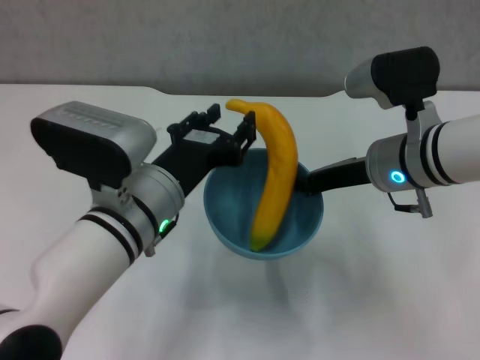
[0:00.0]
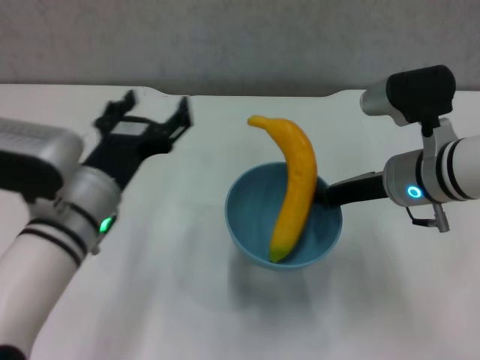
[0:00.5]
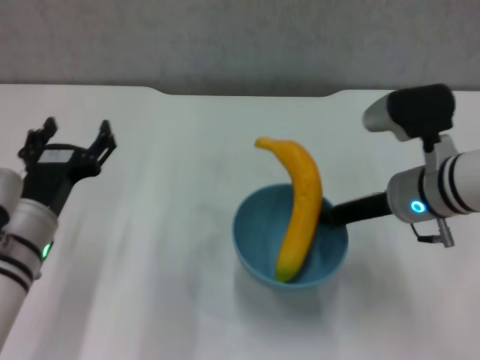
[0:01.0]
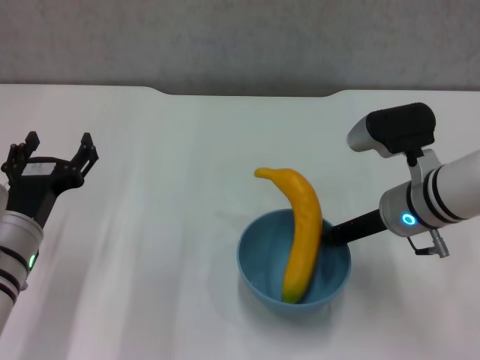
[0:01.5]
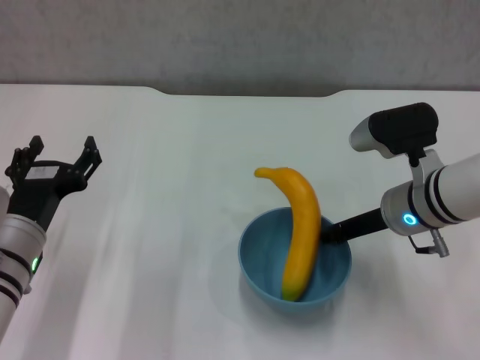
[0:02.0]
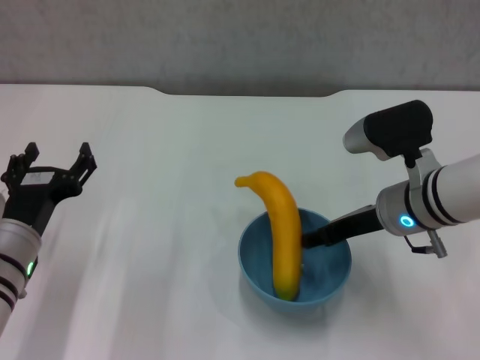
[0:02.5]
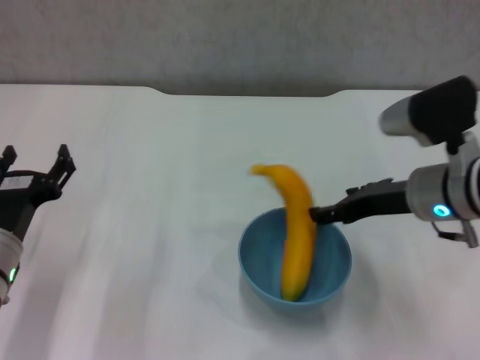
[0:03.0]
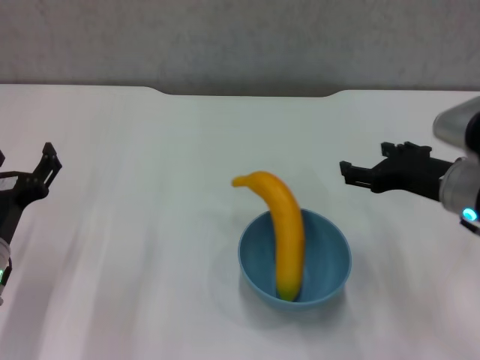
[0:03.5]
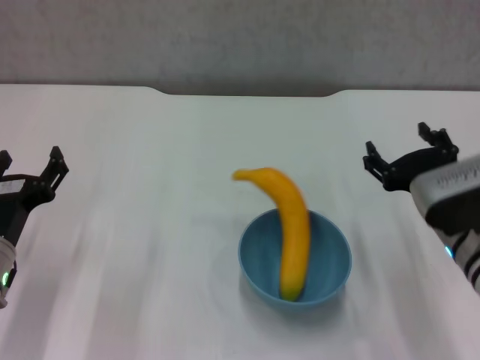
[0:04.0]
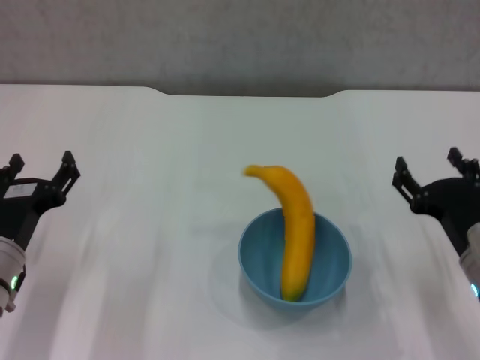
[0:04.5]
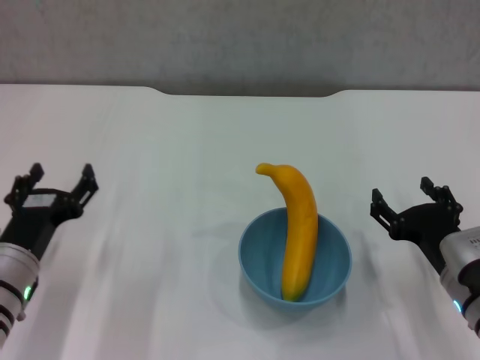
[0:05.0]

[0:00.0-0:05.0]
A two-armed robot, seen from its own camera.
Step, 0:00.0 to 0:02.5: Place the bowl on the table with right gripper.
0:00.0 to 0:02.5: The right gripper opens up, while the left gripper heads to the left and downward, covering roughly 15 cm, and opens its fingers.
0:02.5 to 0:05.0: The right gripper moves backward, downward and to the right, some 15 cm.

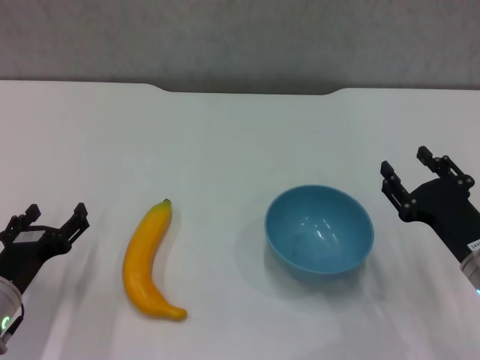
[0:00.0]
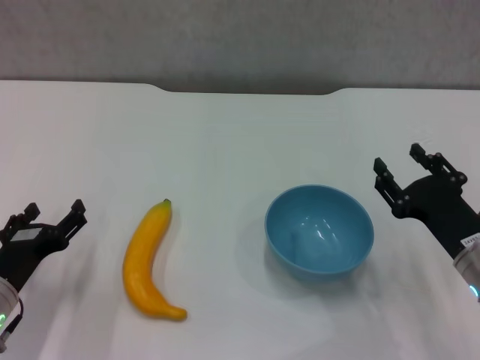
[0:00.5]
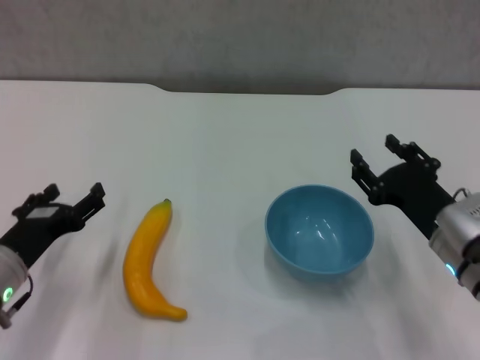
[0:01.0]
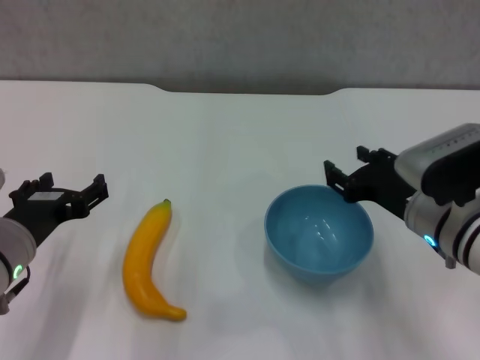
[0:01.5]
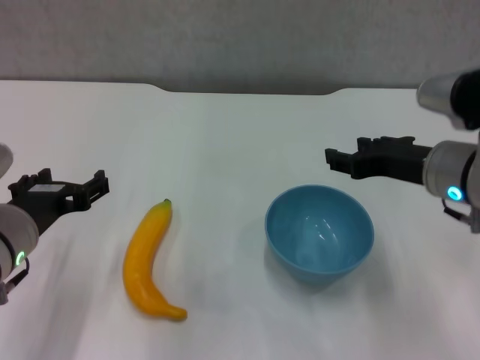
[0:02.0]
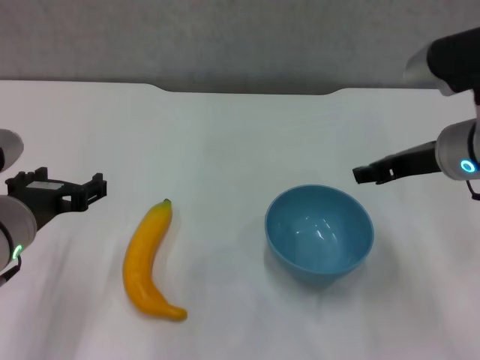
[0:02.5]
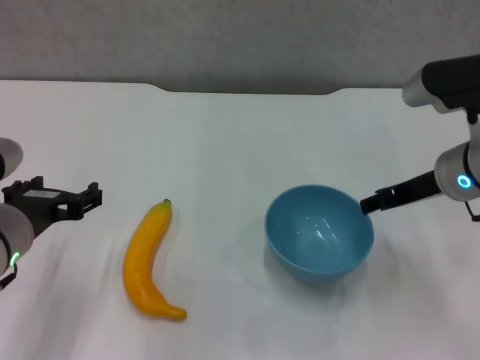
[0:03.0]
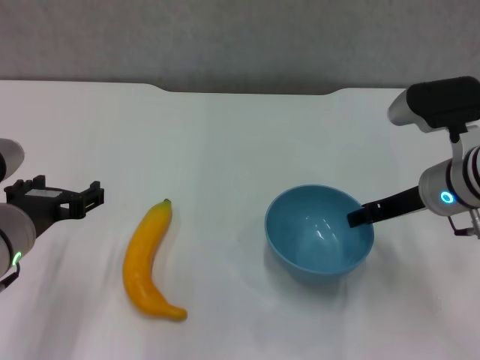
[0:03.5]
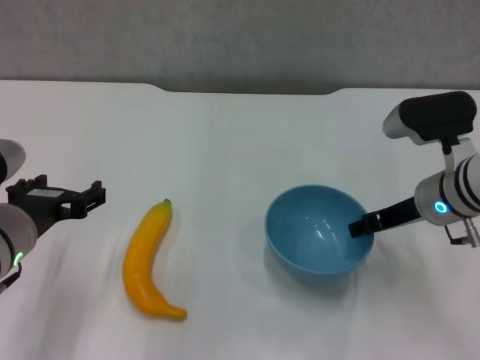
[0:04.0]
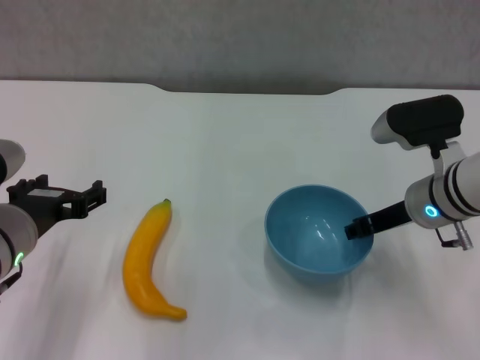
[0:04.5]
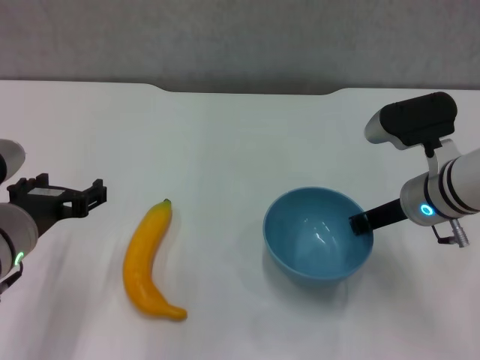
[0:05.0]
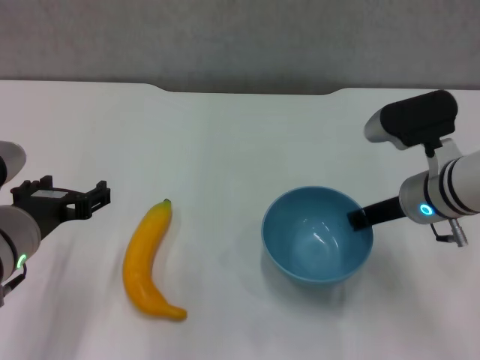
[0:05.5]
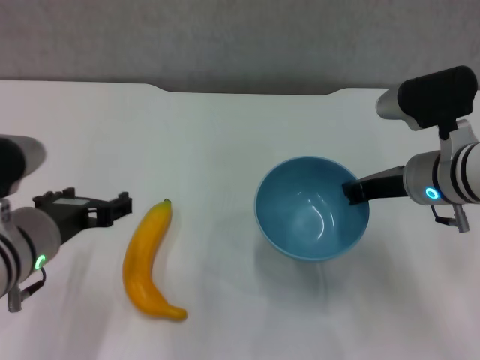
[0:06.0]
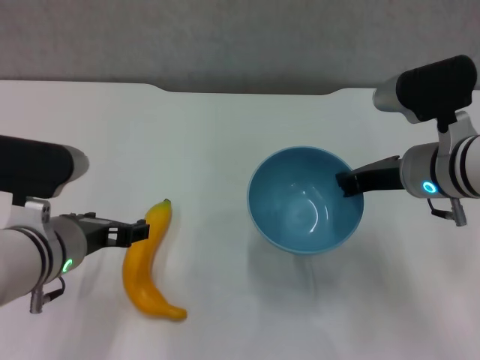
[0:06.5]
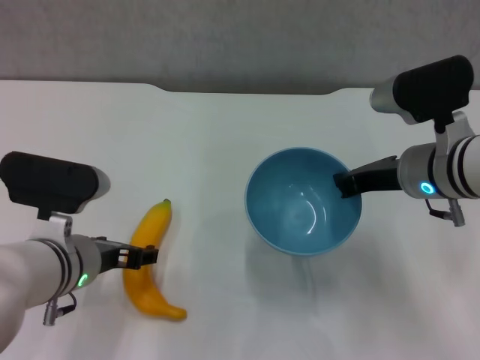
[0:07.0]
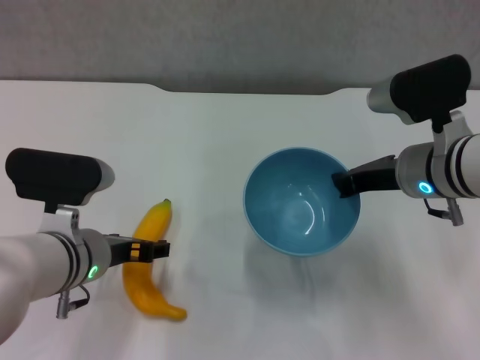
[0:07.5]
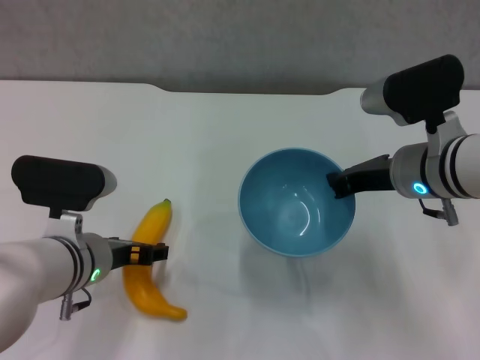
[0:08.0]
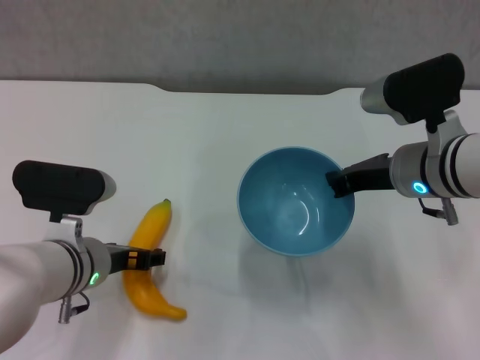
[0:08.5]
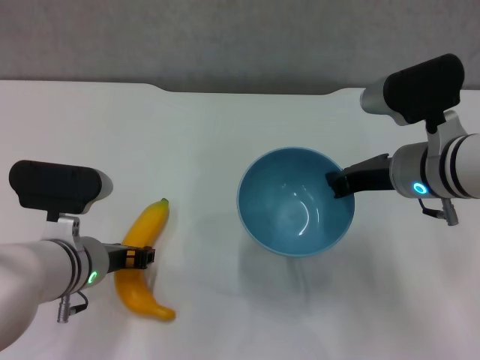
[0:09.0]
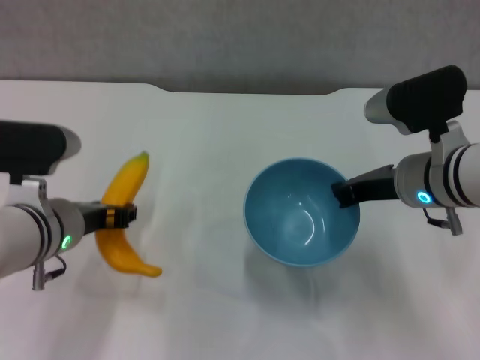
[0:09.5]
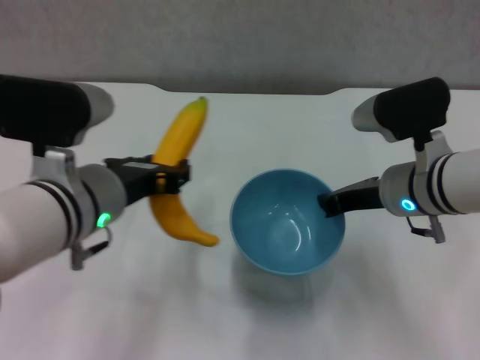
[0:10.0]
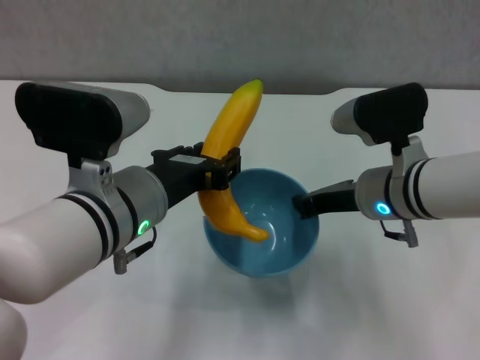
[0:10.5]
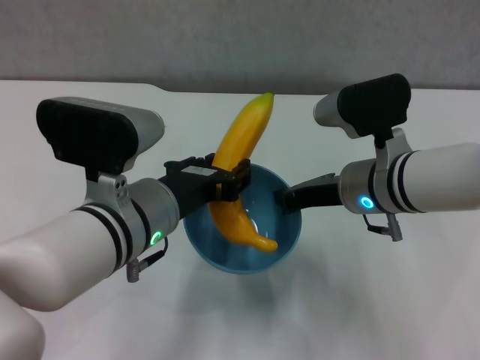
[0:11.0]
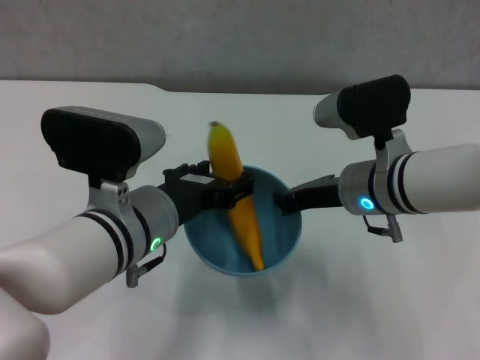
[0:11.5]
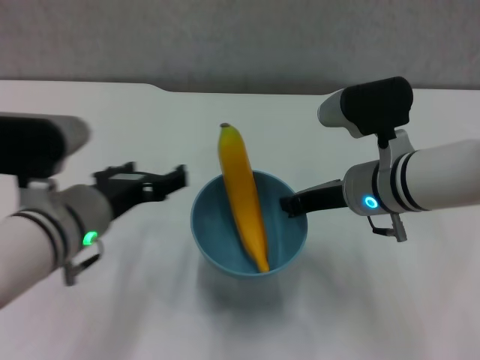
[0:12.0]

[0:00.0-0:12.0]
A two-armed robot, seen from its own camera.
Step, 0:00.0 to 0:05.0: Grasp the blue bowl with right gripper.
Step, 0:05.5 to 0:06.5: Lift the blue bowl with right gripper.
Step, 0:07.0 to 0:09.0: Grasp the banana with left gripper.
Step, 0:09.5 to 0:11.5: Place the banana in the blue bowl with left gripper.
0:00.0 to 0:02.0: The right gripper goes some 15 cm upward and forward, while the left gripper is displaced upward by about 10 cm.
0:02.0 to 0:04.0: The right gripper travels downward by approximately 5 cm.
0:04.0 to 0:06.0: The right gripper closes.
0:06.0 to 0:08.0: The left gripper moves downward, roughly 5 cm.
0:08.0 to 0:10.0: The left gripper travels upward by roughly 10 cm, and closes.
0:10.0 to 0:12.0: The left gripper opens its fingers.

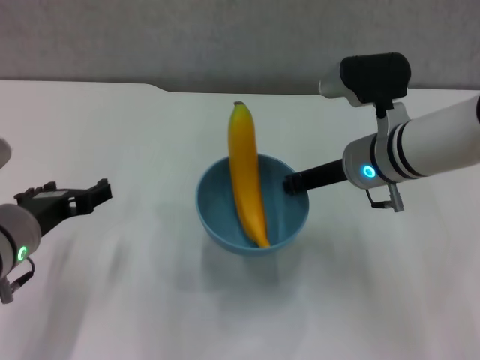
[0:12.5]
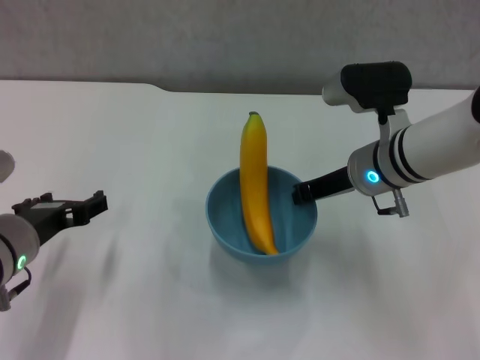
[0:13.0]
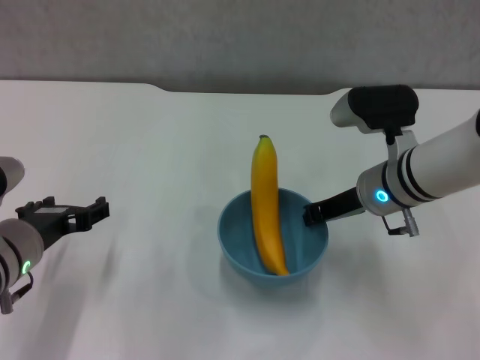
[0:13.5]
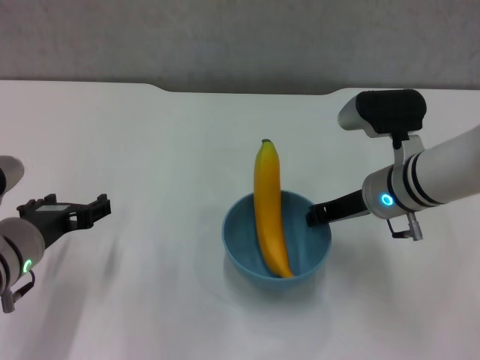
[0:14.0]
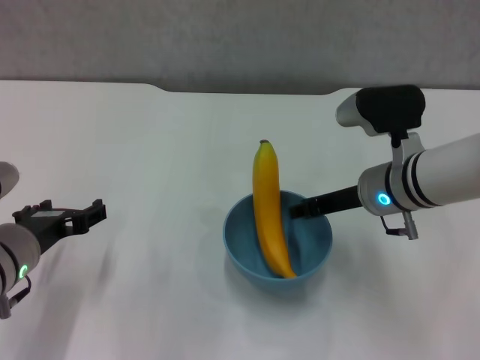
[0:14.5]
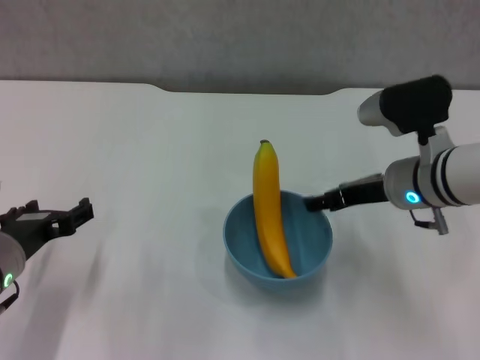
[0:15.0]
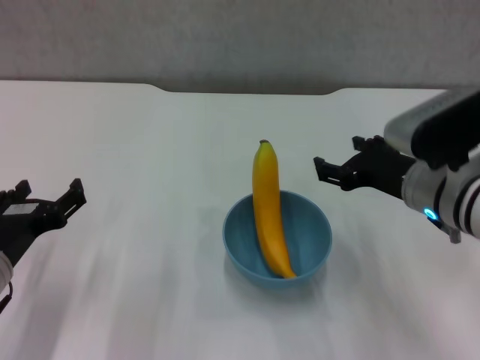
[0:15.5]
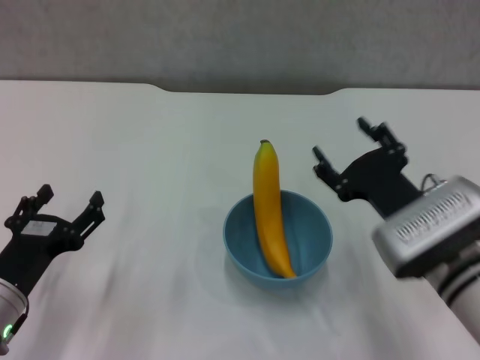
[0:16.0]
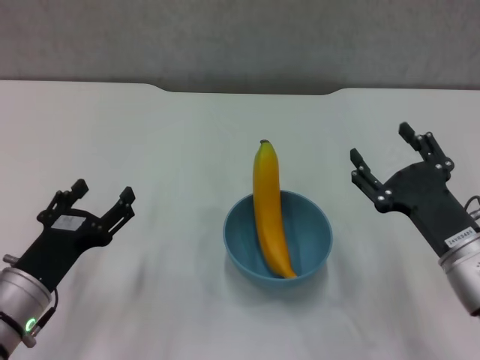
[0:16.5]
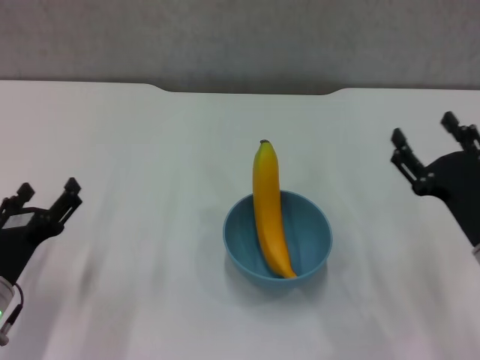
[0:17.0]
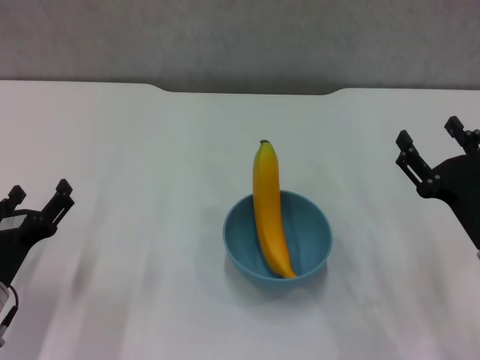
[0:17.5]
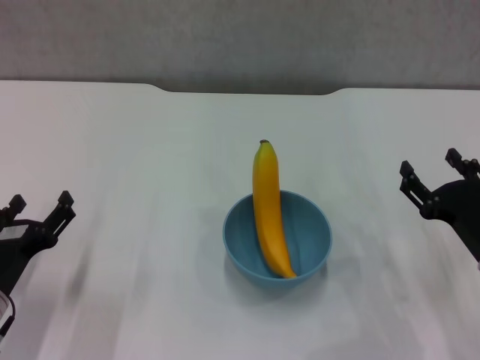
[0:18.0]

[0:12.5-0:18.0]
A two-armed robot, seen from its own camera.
Step, 0:12.5 to 0:14.5: Place the bowl on the table with right gripper.
0:14.5 to 0:16.0: The right gripper goes roughly 10 cm backward, and opens; the left gripper is displaced downward by approximately 5 cm.
0:16.0 to 0:18.0: The right gripper shifts about 10 cm to the right.
